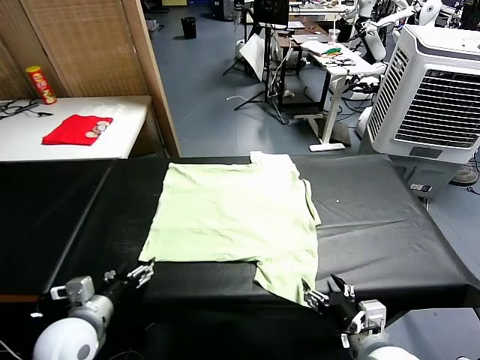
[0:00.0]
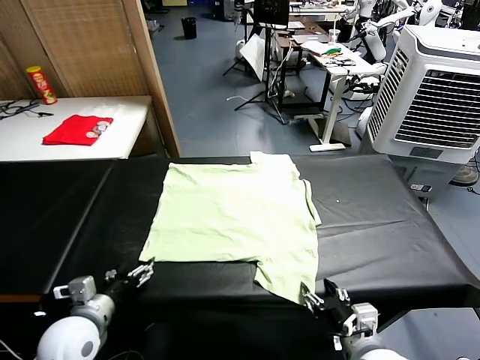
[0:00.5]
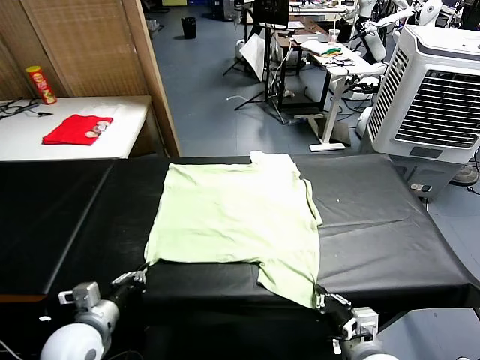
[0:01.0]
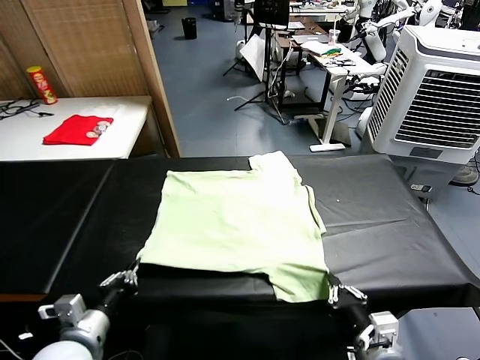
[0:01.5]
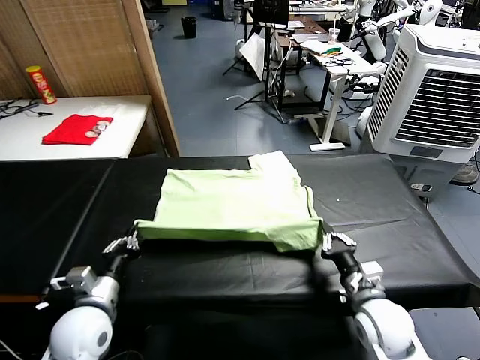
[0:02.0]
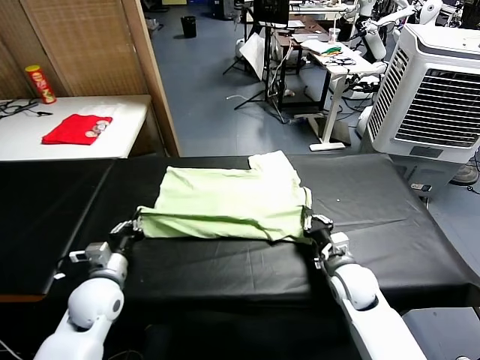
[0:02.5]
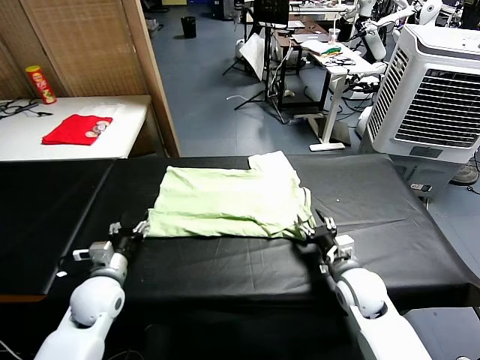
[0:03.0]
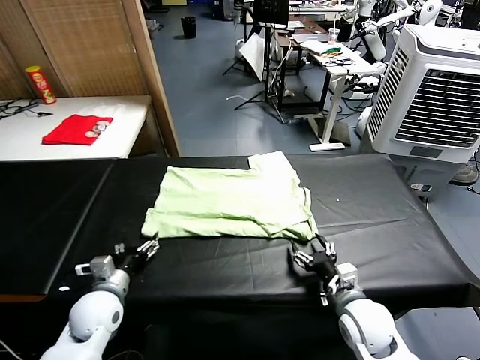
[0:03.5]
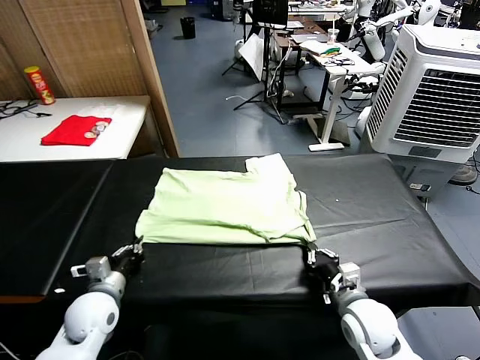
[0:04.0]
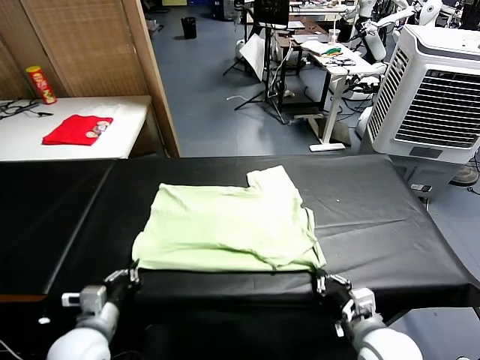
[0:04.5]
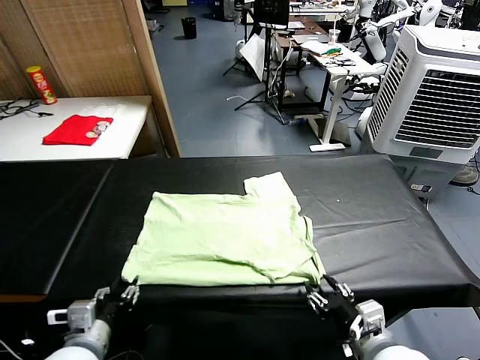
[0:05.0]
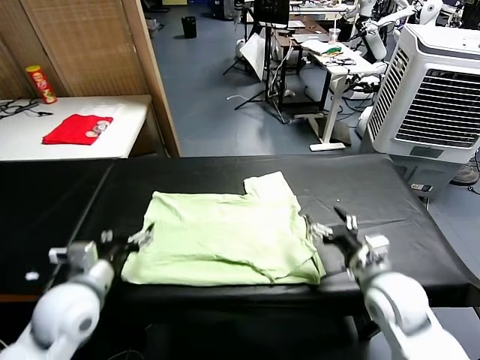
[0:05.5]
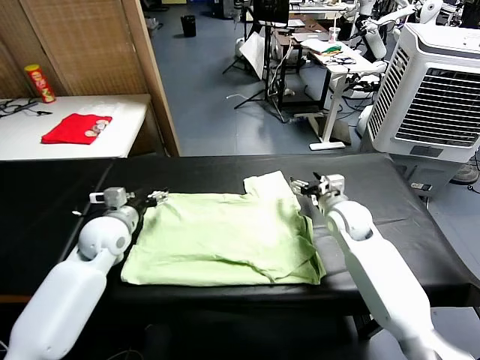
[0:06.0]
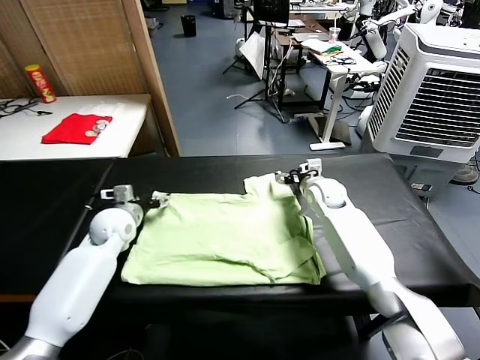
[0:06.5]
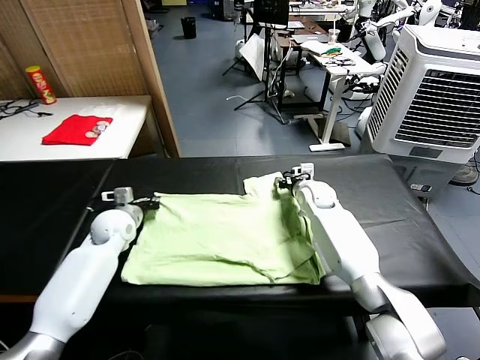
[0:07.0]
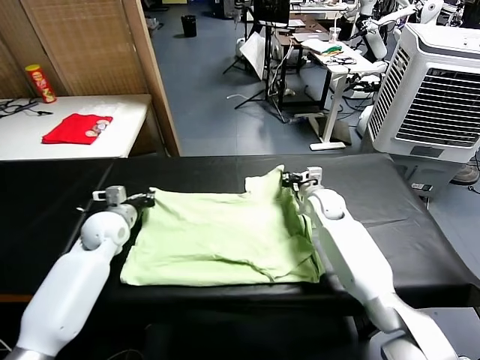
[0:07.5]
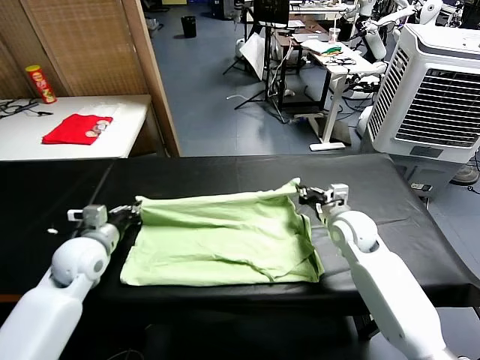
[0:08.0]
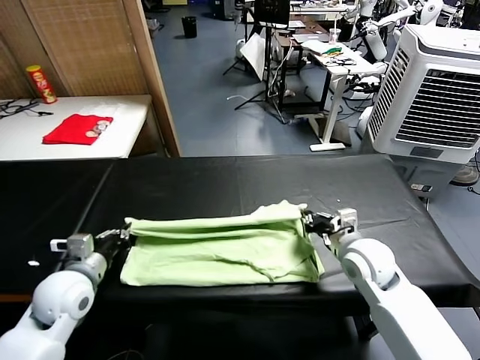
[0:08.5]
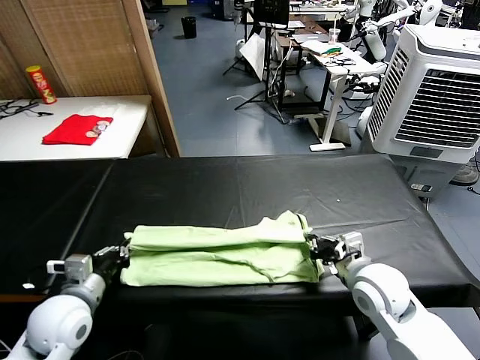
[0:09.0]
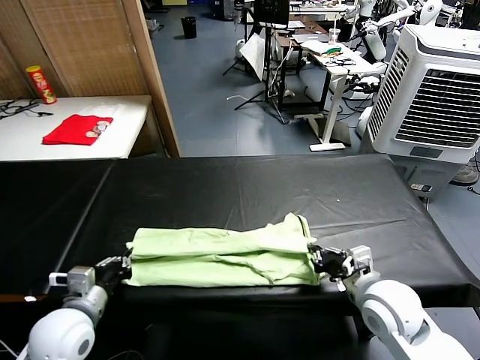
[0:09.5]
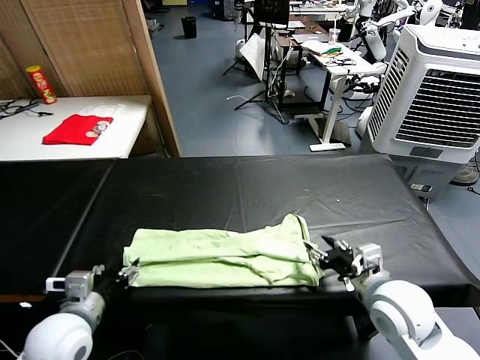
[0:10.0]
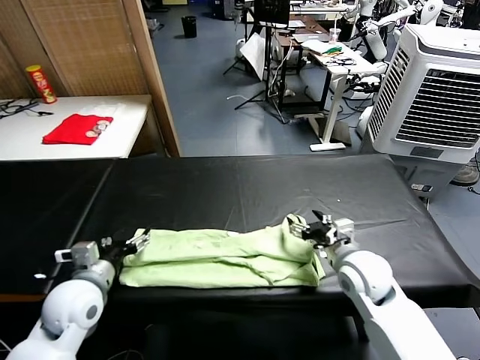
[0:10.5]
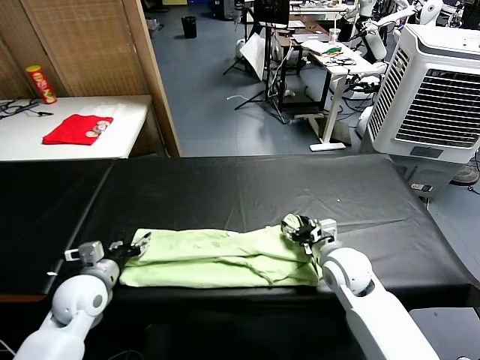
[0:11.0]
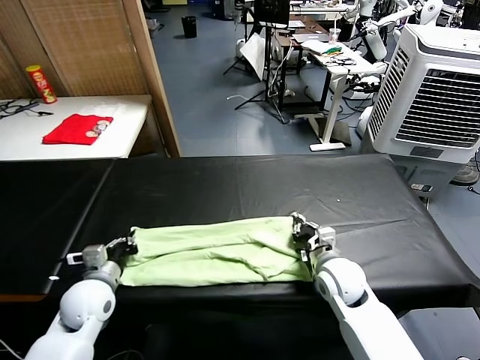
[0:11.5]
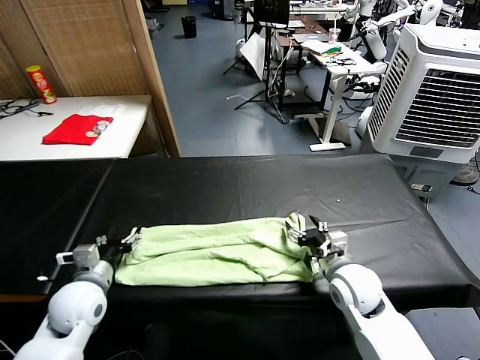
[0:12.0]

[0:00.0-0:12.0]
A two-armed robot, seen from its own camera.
Task of the whole recording: fold and organize the clothes.
Step, 0:00.0 to 0:01.0: use both grippers simultaneously to clamp the lower edge of the clothing fabric.
Step, 0:01.5 to 0:03.0: use both grippers to drag the lower edge of the fabric forward and fold it over the upper edge.
Step, 0:03.5 to 0:05.0: Drag the clothes downward with both gripper.
Step, 0:05.5 to 0:07.0: use both grippers simultaneously to clamp the upper edge of the clothing fabric.
Step, 0:07.5 to 0:10.0: use both grippers to drag the upper edge of the fabric backward and fold it over the lower edge.
0:02.0 to 0:04.0: The left gripper changes place by some 5 cm, and opens, then closes once more; the right gripper goes about 10 cm backward, and opens and closes again.
0:04.0 to 0:06.0: The right gripper is displaced forward by about 30 cm, and opens up. The left gripper moves forward and upward, approximately 15 cm, and opens up.
0:06.0 to 0:08.0: The left gripper shifts about 5 cm backward, and closes up; the right gripper moves backward, approximately 10 cm, and closes its fingers.
0:08.0 to 0:10.0: Both grippers travel together backward, some 15 cm. The right gripper opens. Meanwhile the left gripper opens up.
0:10.0 to 0:12.0: The left gripper shifts approximately 5 cm forward, and closes, then reopens; the right gripper goes approximately 5 cm downward, and closes, then opens again.

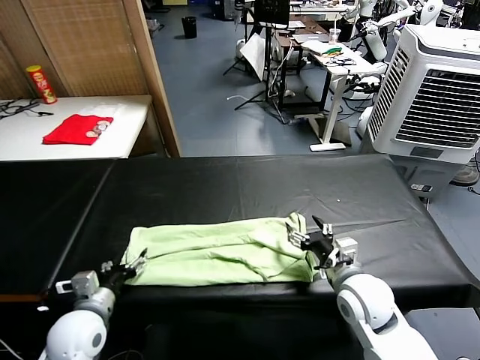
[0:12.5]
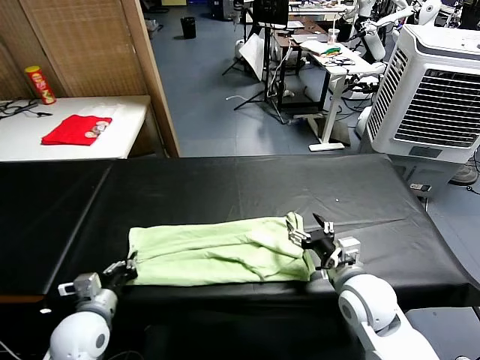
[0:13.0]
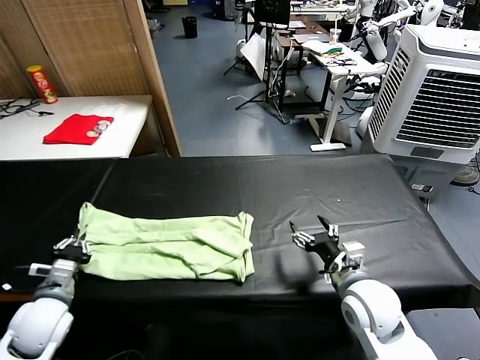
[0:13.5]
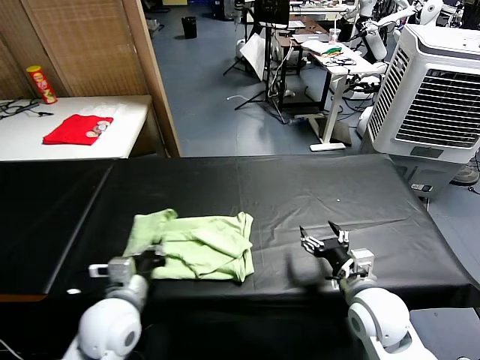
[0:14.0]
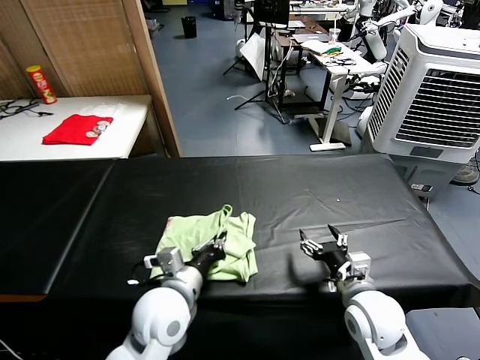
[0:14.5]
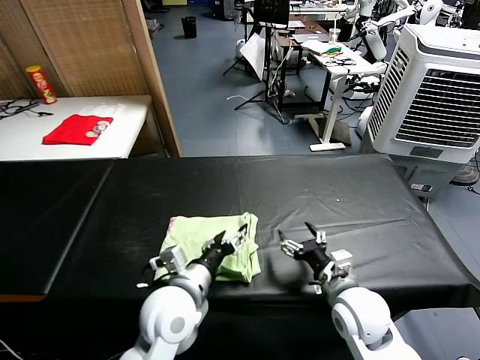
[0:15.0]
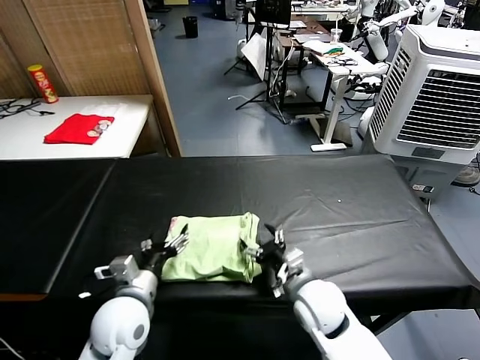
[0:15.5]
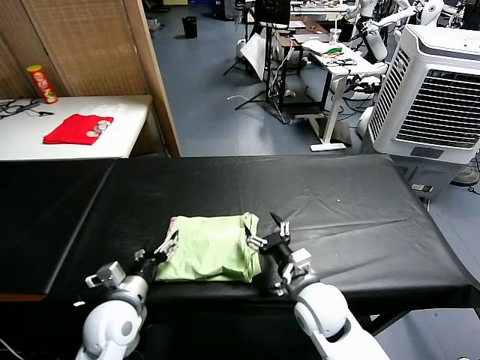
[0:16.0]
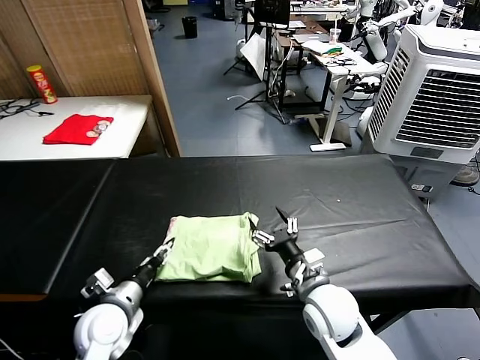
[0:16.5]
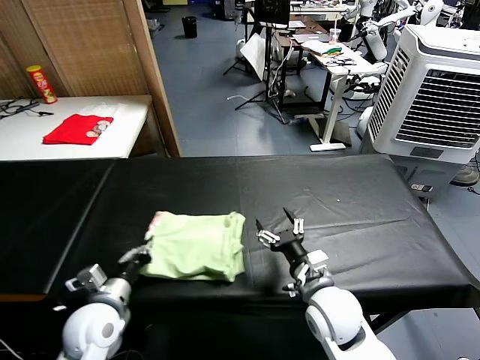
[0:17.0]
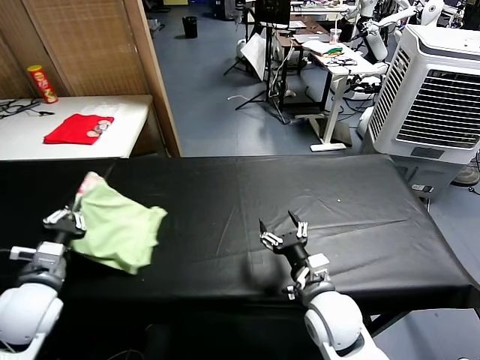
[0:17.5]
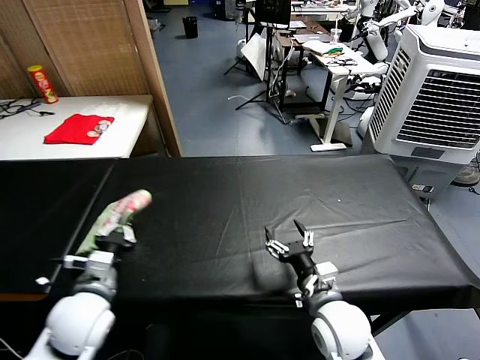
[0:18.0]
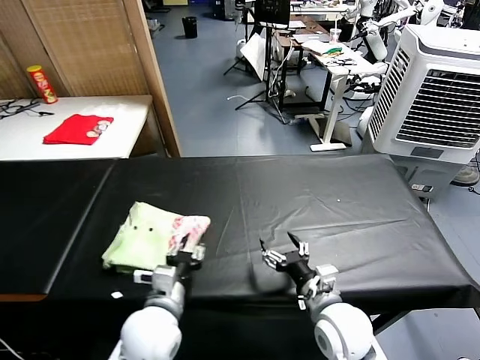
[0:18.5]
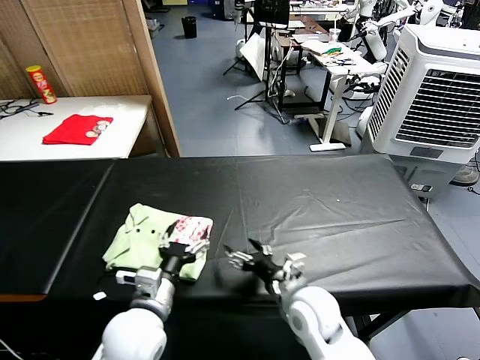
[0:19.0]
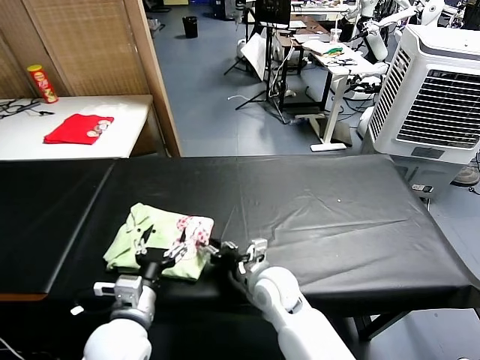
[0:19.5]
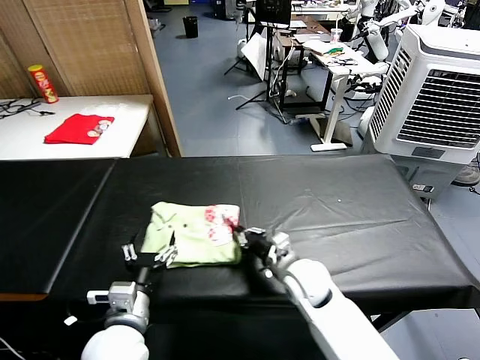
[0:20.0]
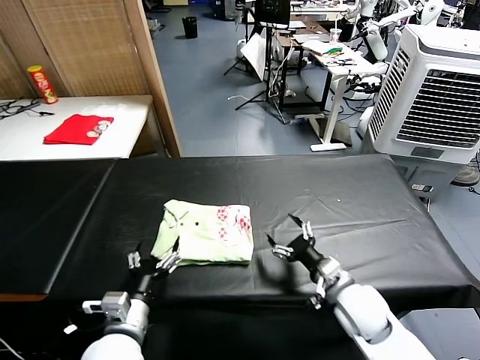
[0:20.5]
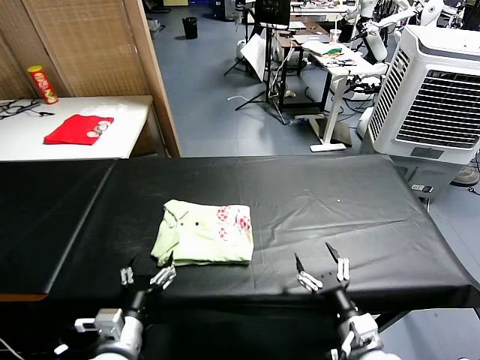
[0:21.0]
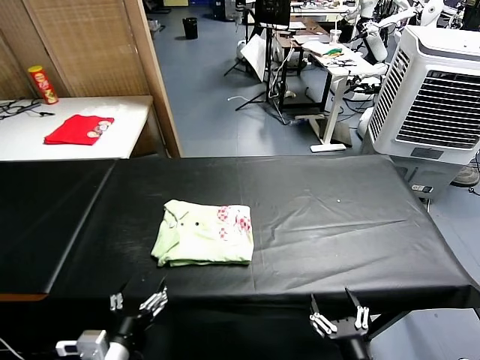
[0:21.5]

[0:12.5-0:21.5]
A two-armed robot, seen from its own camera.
Task of the whole recording: fold and organize the clothes.
Step, 0:13.0 to 0:15.0: use the left gripper to drag the left edge of the fabric to the left and folds it over the right edge.
Step, 0:15.5 to 0:18.5: Flip the folded clothes over with left gripper.
Step, 0:19.0 to 0:20.0: Drag the clothes to the center of the table.
0:12.5 to 0:14.5: The left gripper travels to the right by roughly 20 cm, and closes.
0:14.5 to 0:17.0: The left gripper travels to the left by roughly 15 cm, and opens and closes again; the right gripper moves to the left, some 5 cm.
0:17.0 to 0:19.5: The left gripper travels to the right by roughly 10 cm, and opens up. The right gripper goes roughly 10 cm to the left and forward, and closes its fingers.
0:19.5 to 0:21.5: The left gripper travels backward by about 10 cm. The right gripper heads backward and to the right, covering about 30 cm, and opens.
